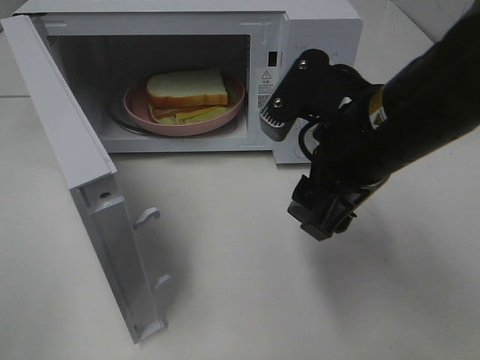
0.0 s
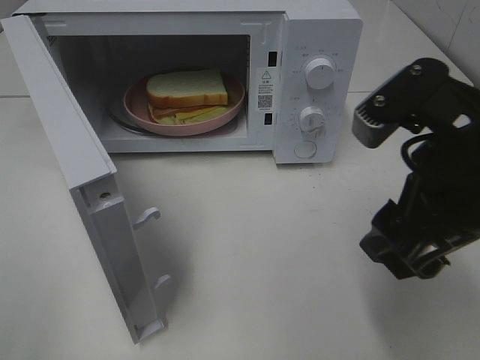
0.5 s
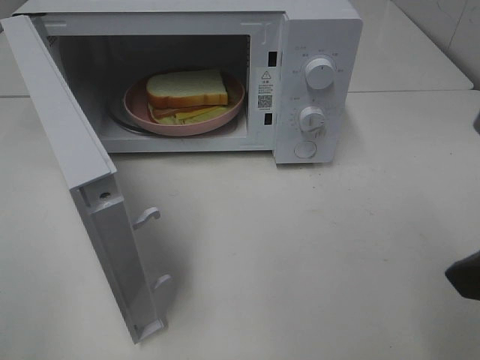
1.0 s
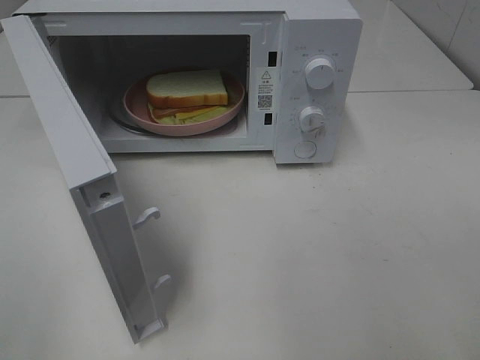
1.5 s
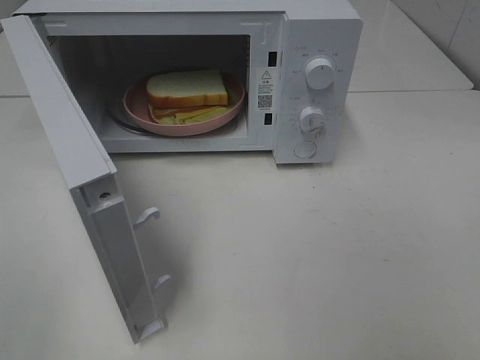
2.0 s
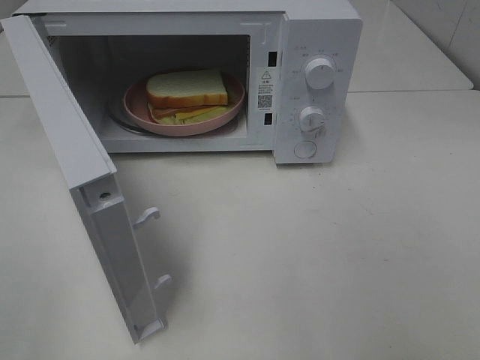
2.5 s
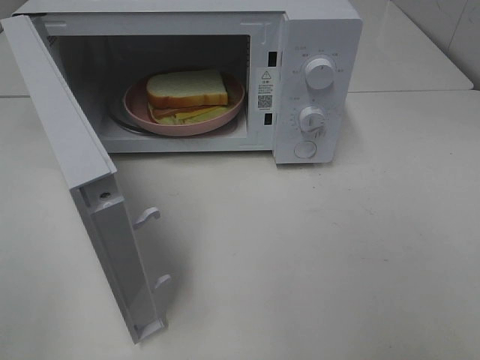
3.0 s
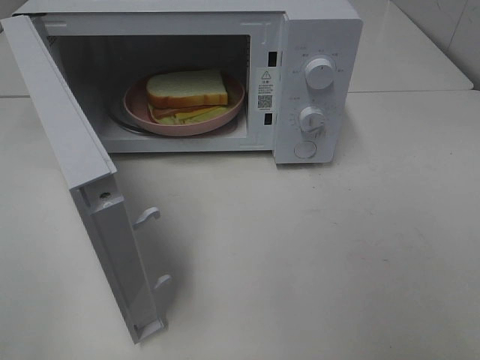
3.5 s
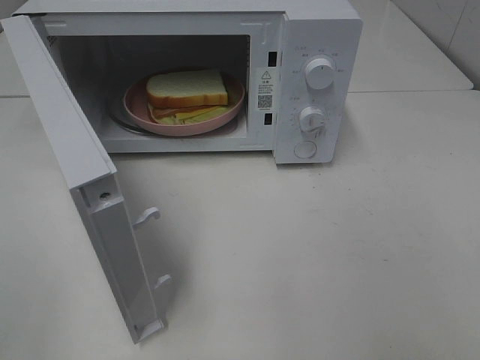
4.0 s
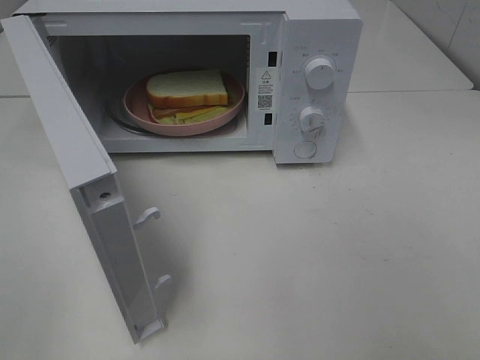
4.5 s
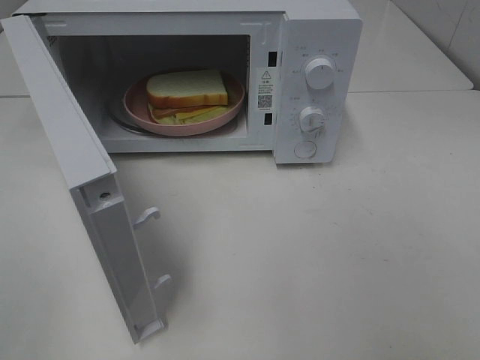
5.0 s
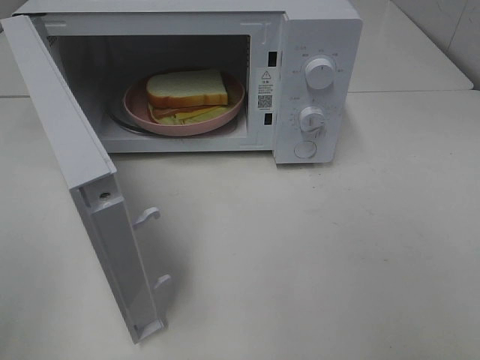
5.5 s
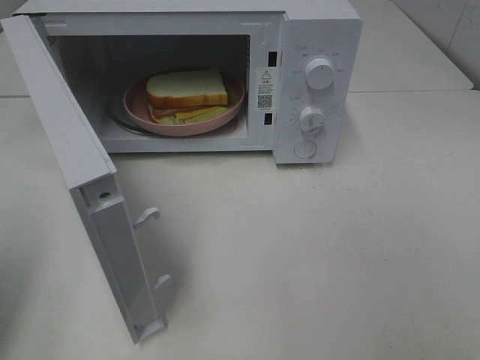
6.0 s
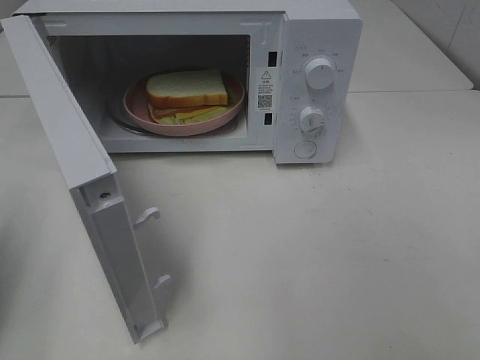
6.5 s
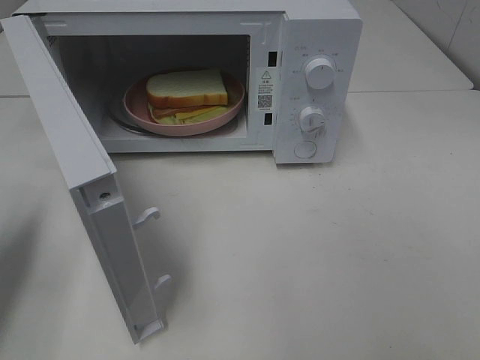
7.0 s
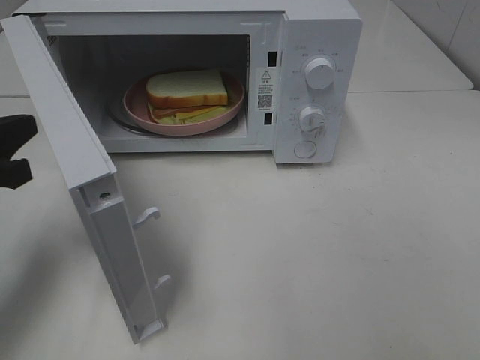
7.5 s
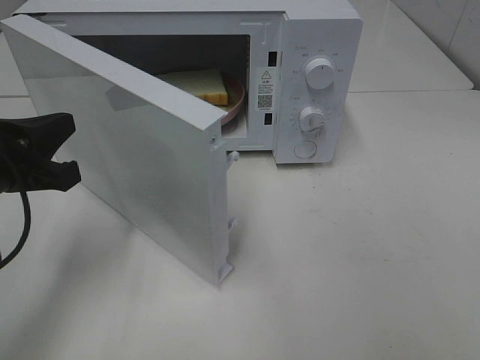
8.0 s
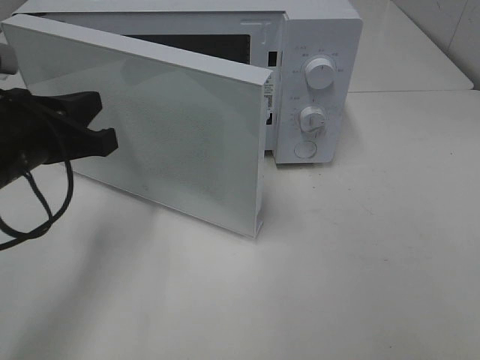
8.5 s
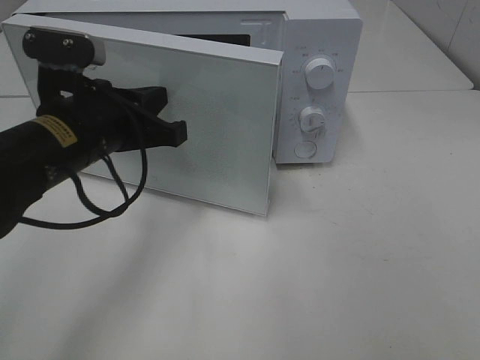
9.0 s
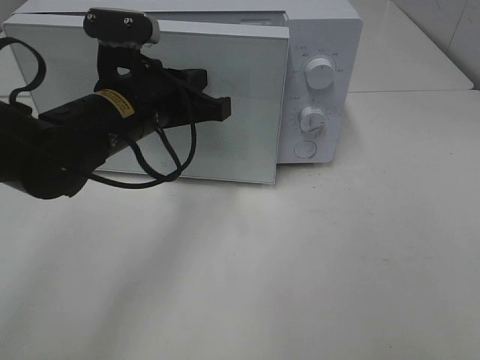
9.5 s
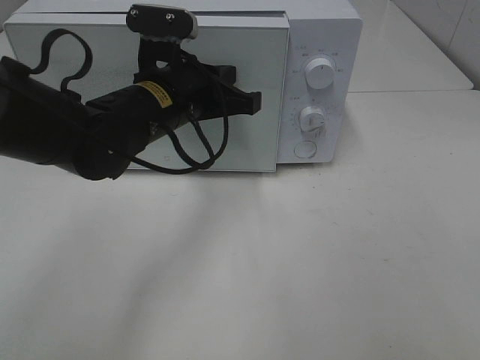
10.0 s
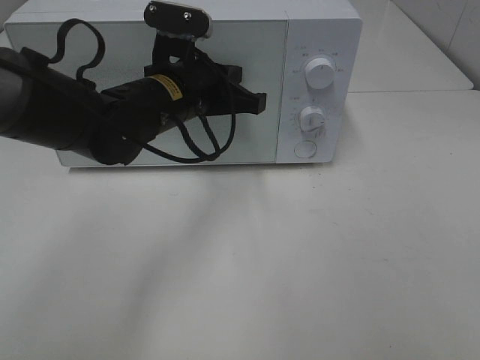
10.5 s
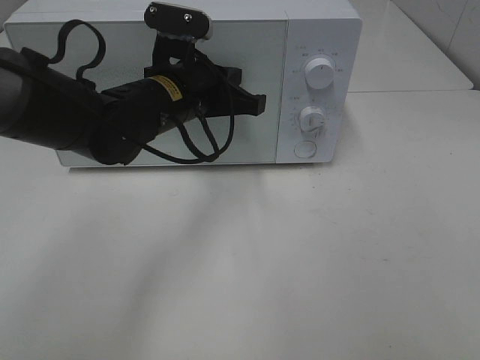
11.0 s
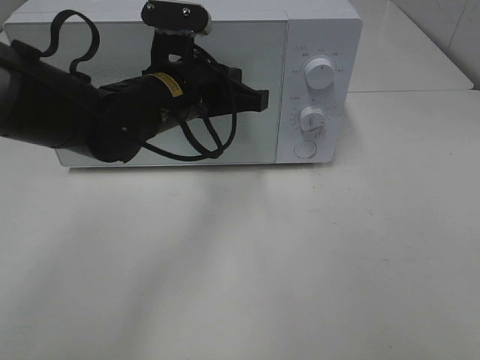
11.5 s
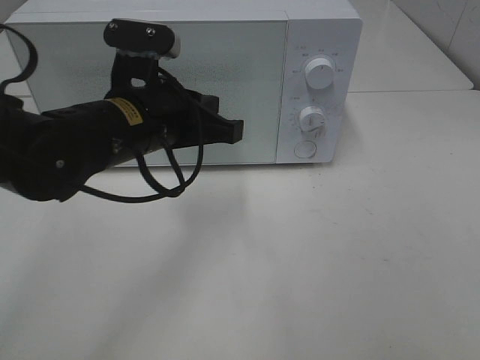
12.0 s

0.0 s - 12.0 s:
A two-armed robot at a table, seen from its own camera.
Task of the whole recording: Heat Sandwich.
Step, 0.0 s - 11.5 s: Left hand: close the microwave door.
0.0 s - 2.0 s: The right gripper is displaced backward, to the right and upward by some 25 cm.
4.0 s - 6.0 s: The left gripper moves forward, about 15 cm, and closes.
6.0 s - 8.0 s: The left gripper is displaced downward, to the right and forward by about 15 cm.
8.0 s - 10.0 s: The left gripper shifts roughly 20 cm to the right and forward.
10.0 s - 12.0 s: The left gripper heads backward, covering some 5 cm.

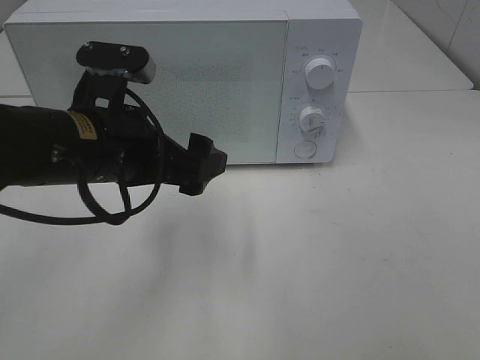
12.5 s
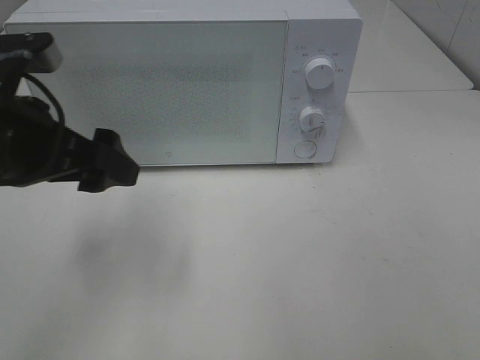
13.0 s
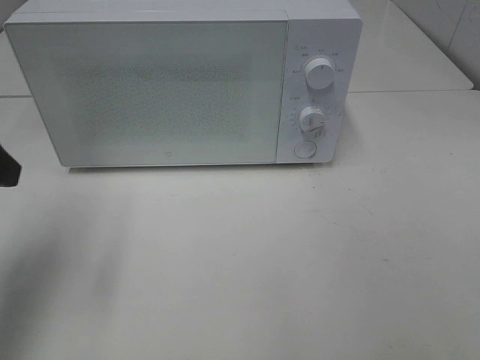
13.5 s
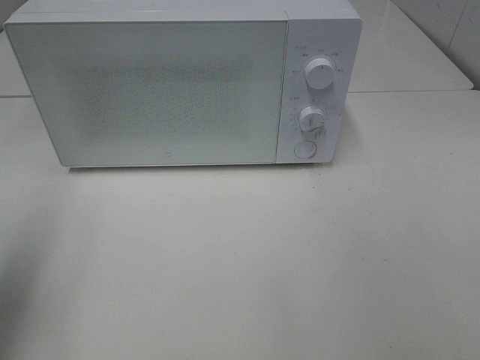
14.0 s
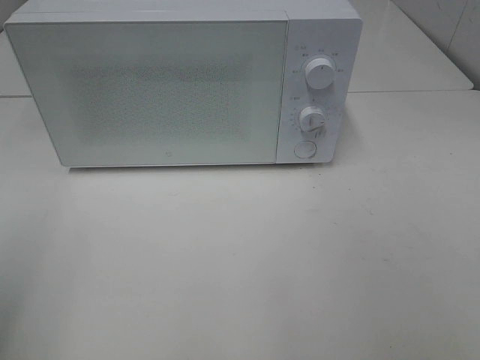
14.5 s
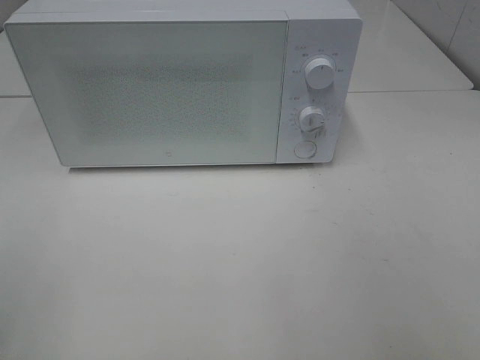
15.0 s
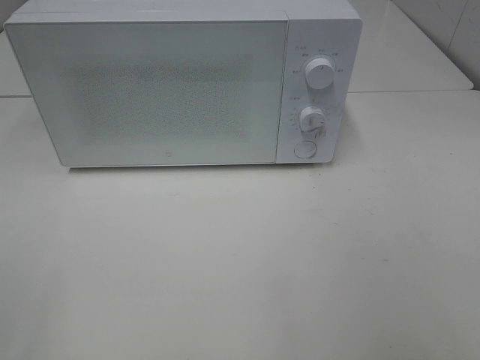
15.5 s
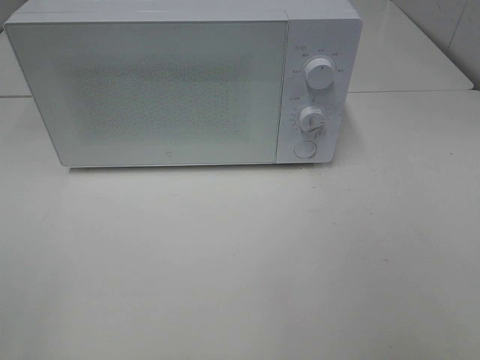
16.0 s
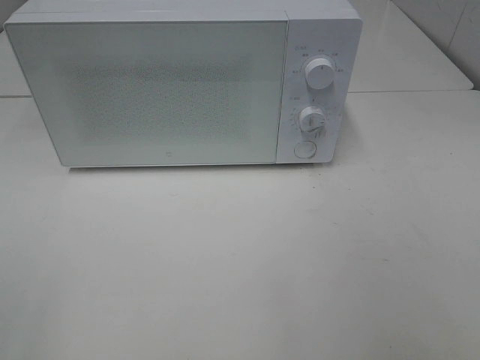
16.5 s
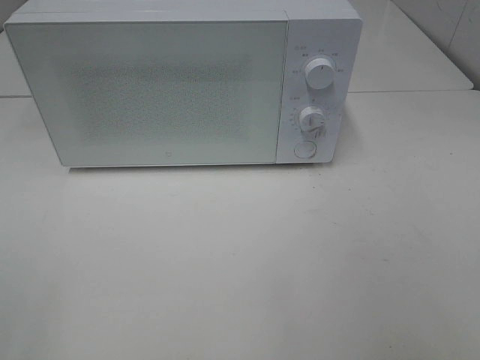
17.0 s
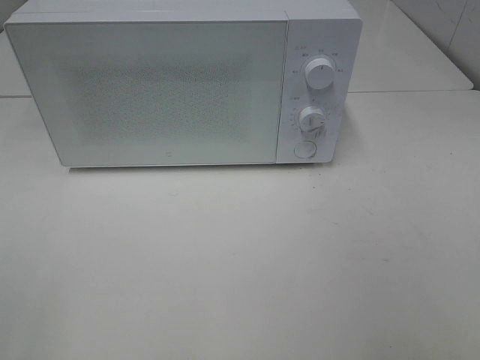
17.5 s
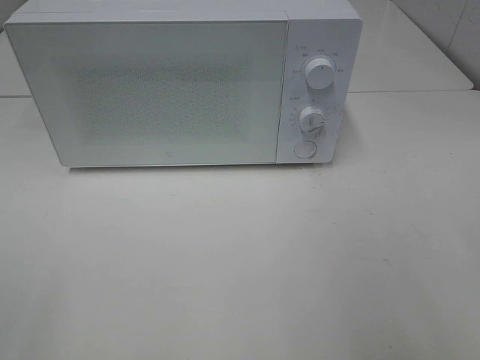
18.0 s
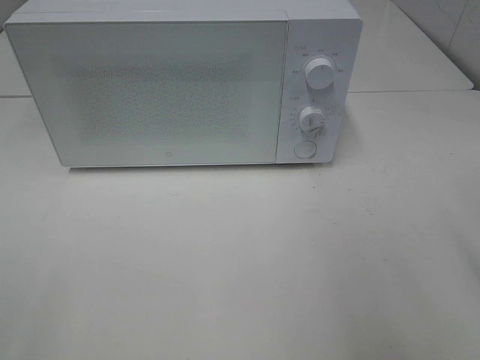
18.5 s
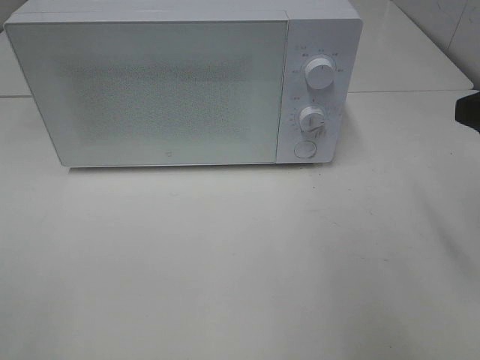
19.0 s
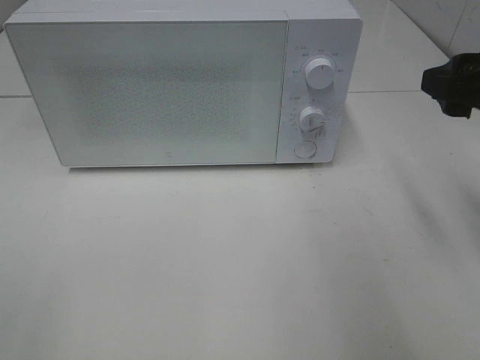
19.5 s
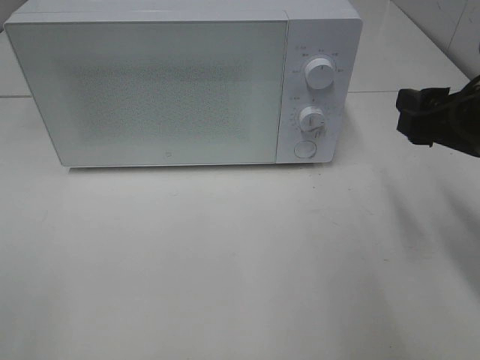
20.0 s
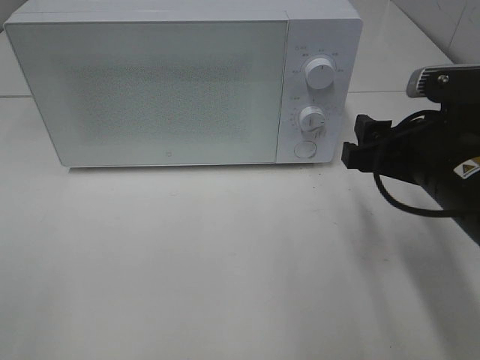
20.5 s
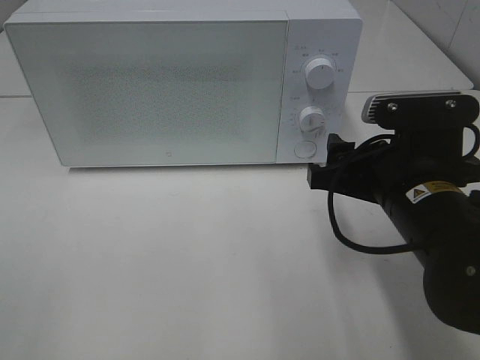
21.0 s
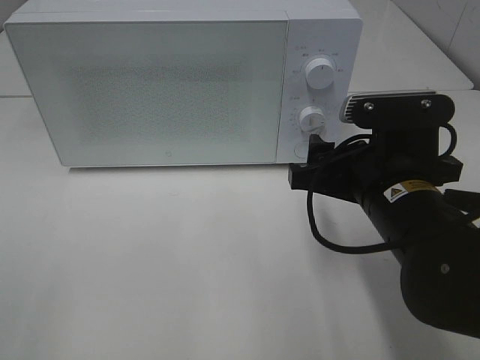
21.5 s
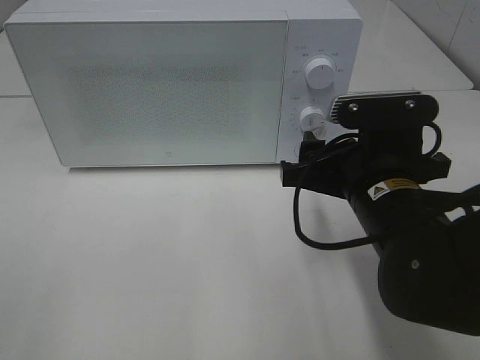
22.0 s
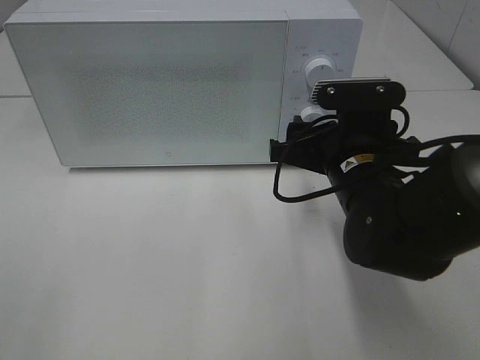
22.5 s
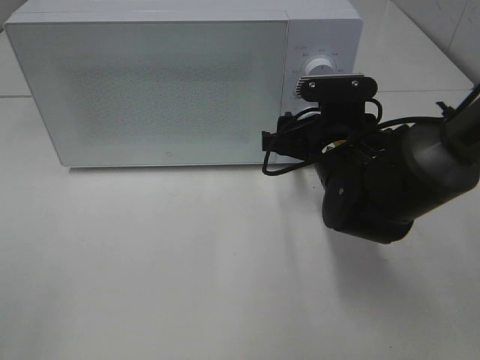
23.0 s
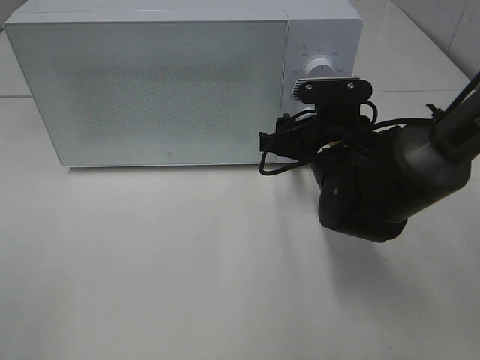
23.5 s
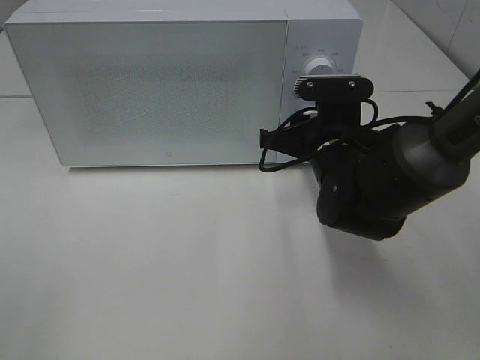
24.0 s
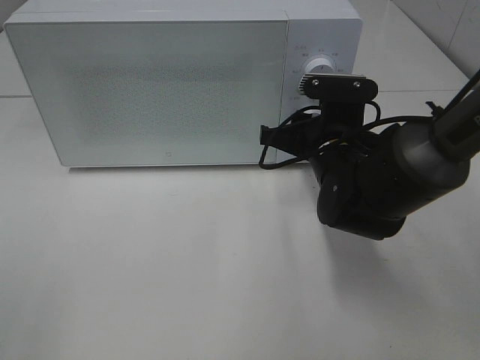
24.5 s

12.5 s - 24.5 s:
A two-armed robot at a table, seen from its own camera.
Task of the whole recording: Heat Sandwich.
12.5 s - 14.5 s: The left gripper is displaced to the left, backward and upward by some 25 cm.
18.5 s - 20.5 s: The right gripper shifts approximately 15 cm downward, to the left and forward.
20.5 s - 22.5 s: The right gripper travels to the left and forward by some 10 cm.
22.5 s - 24.5 s: The right gripper is displaced forward by some 5 cm, and closes its fingers.

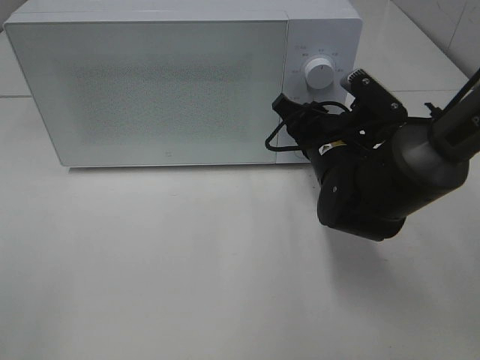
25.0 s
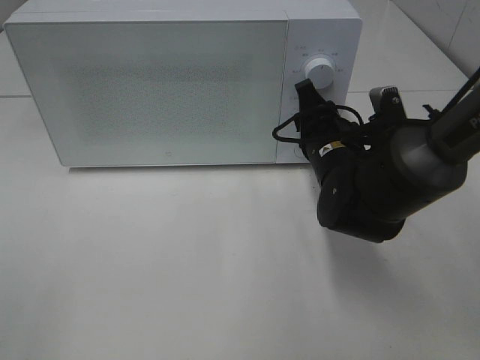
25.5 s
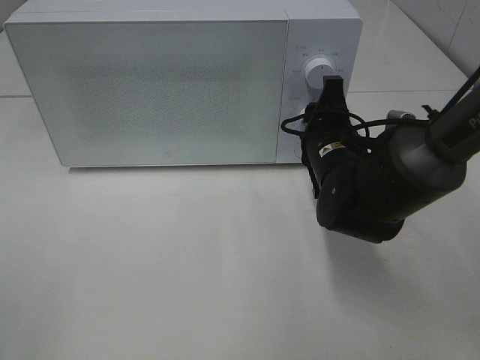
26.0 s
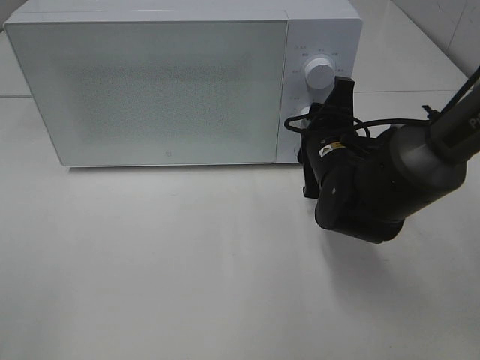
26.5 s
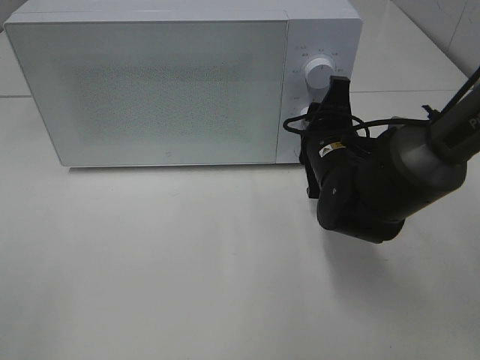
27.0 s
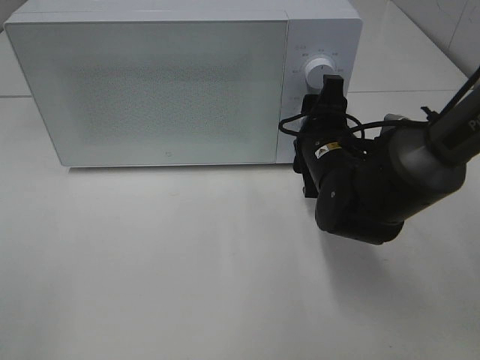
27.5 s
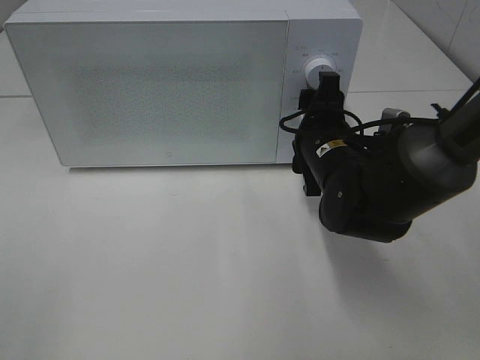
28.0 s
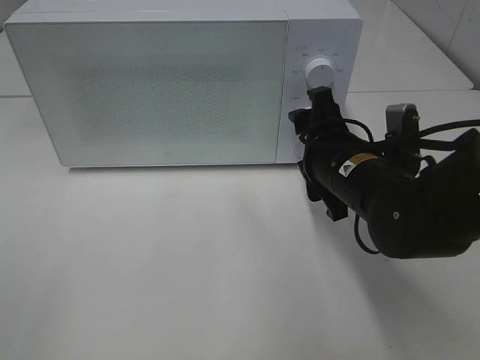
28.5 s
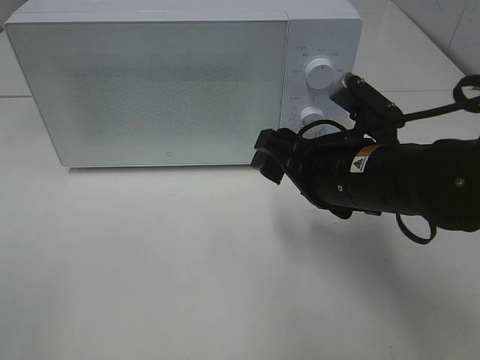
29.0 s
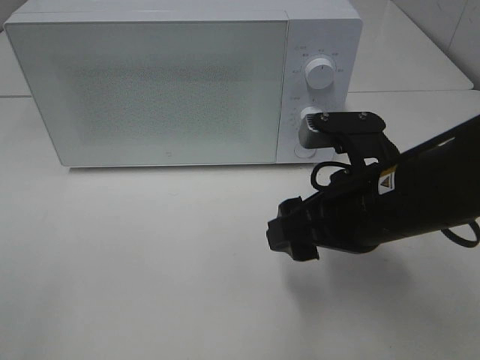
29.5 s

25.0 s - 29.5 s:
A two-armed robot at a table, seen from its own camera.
Task of the whole recording: Heat Sandwich.
Step, 25.0 s - 27.5 s: Right hand: twist timer button.
27.0 s - 29.5 s: The right gripper heads backward and upward, covering approximately 15 cm.
